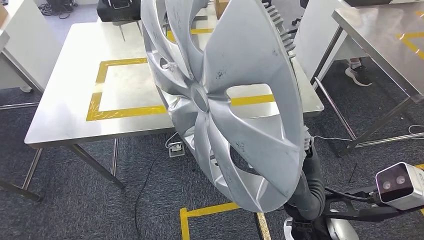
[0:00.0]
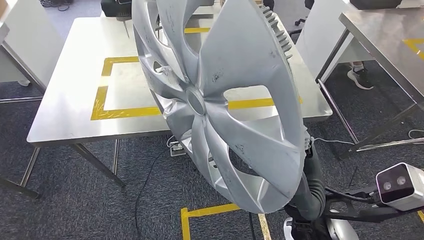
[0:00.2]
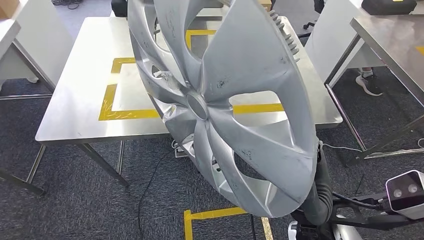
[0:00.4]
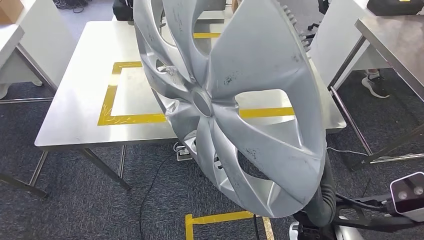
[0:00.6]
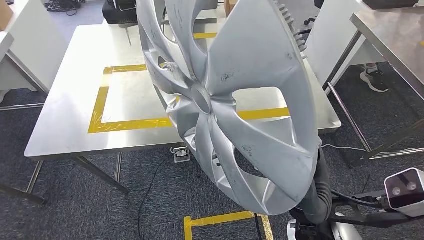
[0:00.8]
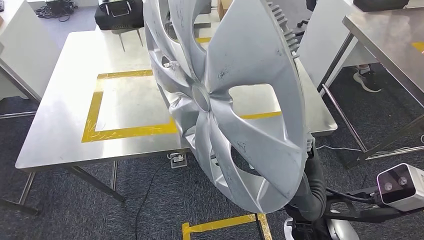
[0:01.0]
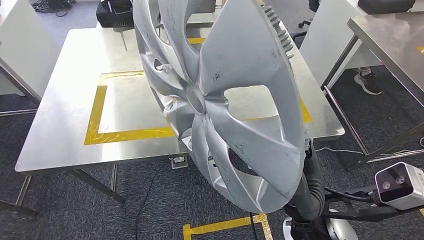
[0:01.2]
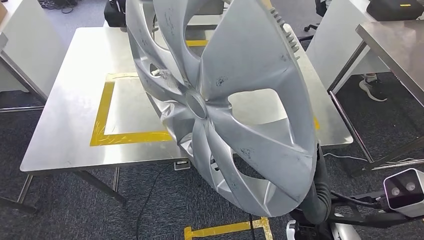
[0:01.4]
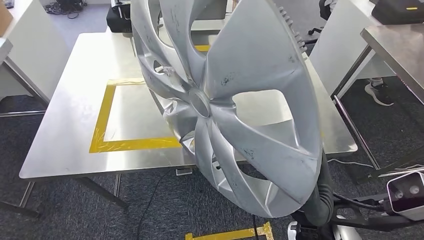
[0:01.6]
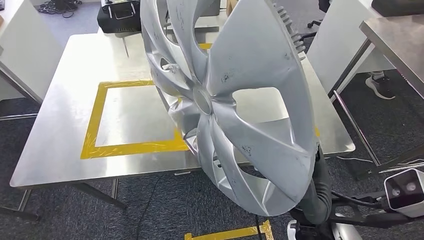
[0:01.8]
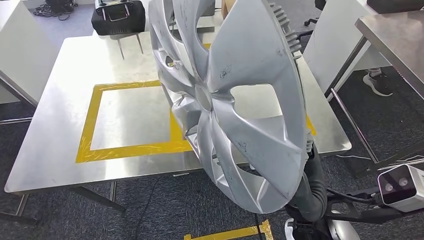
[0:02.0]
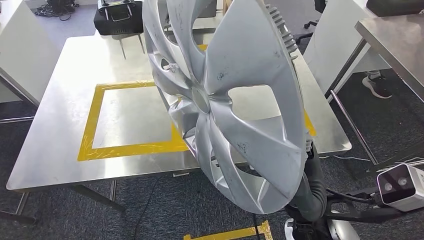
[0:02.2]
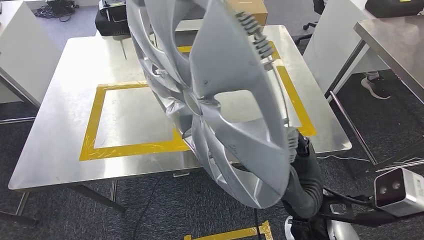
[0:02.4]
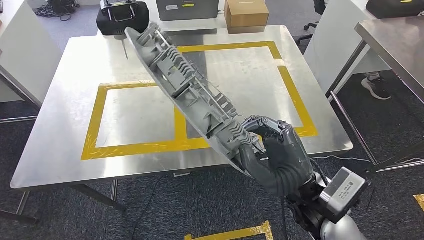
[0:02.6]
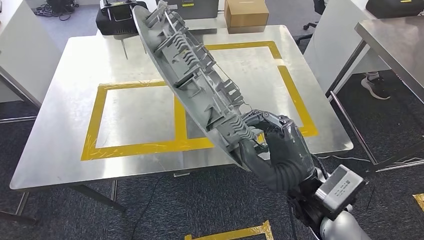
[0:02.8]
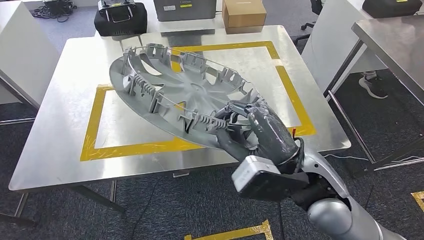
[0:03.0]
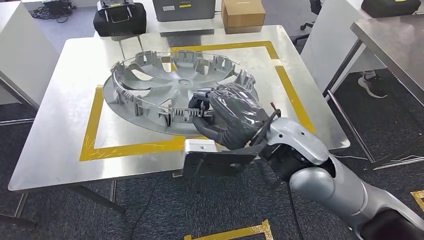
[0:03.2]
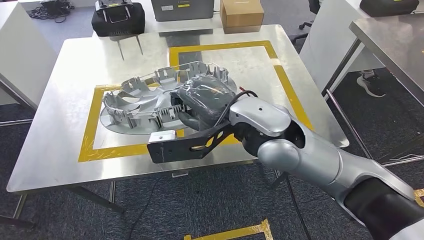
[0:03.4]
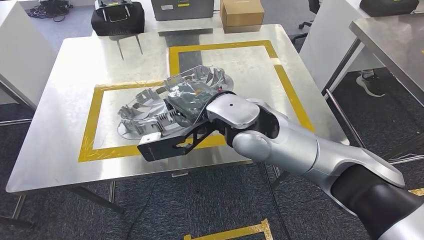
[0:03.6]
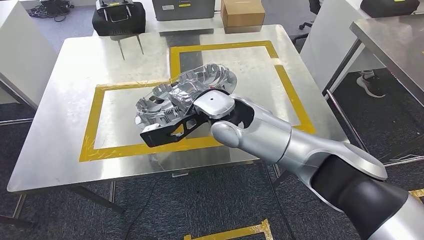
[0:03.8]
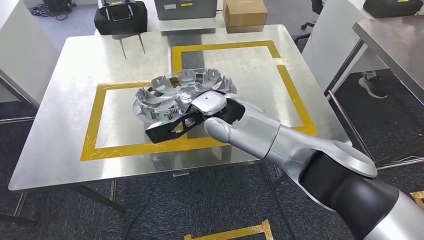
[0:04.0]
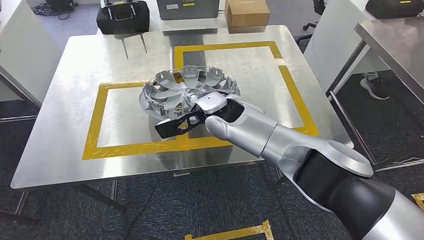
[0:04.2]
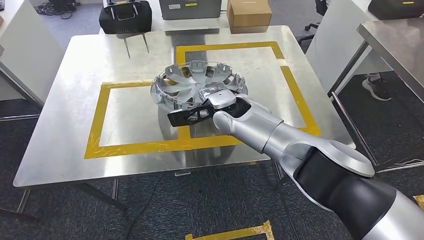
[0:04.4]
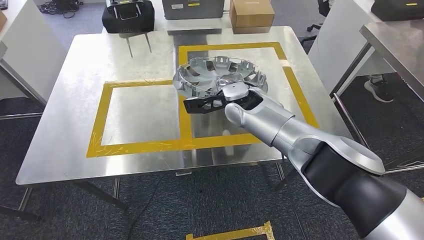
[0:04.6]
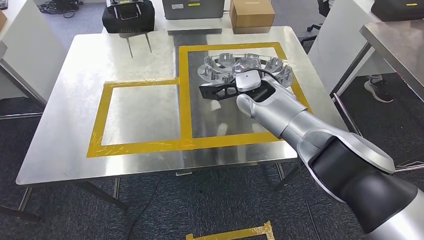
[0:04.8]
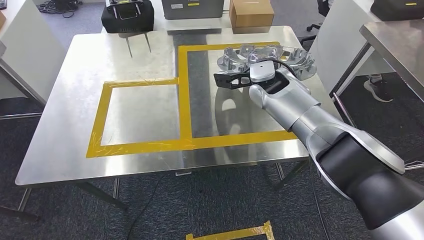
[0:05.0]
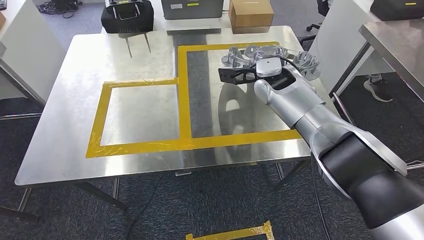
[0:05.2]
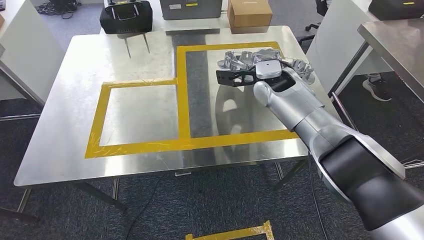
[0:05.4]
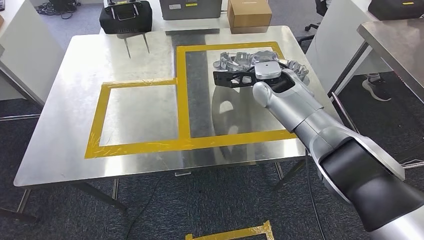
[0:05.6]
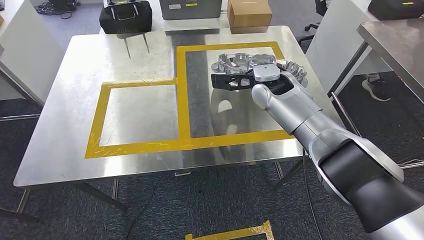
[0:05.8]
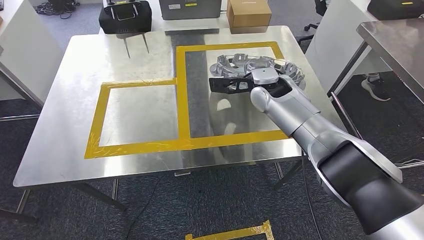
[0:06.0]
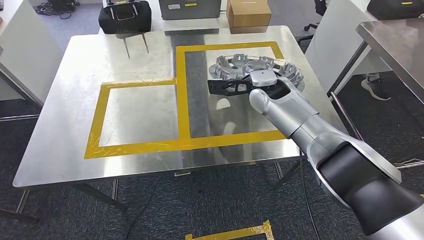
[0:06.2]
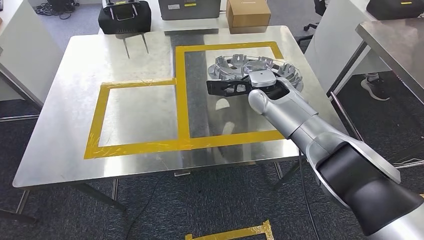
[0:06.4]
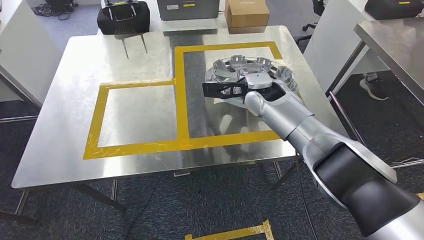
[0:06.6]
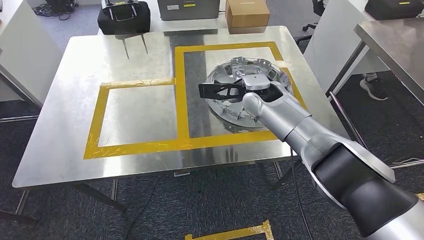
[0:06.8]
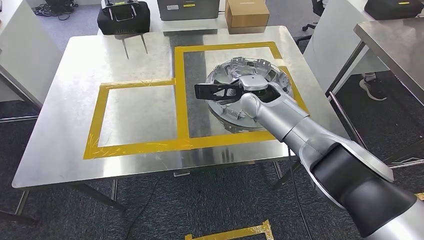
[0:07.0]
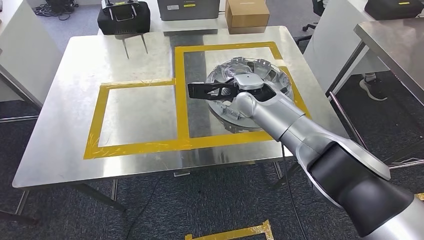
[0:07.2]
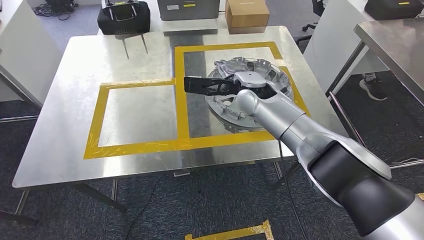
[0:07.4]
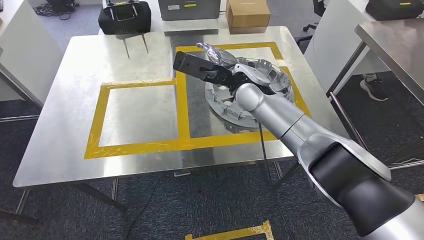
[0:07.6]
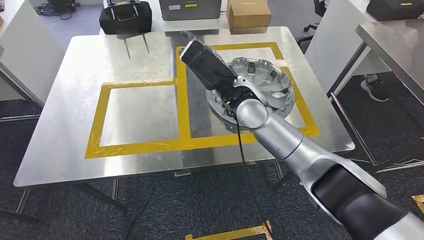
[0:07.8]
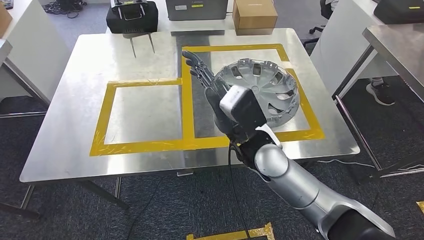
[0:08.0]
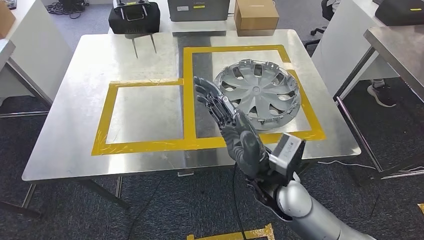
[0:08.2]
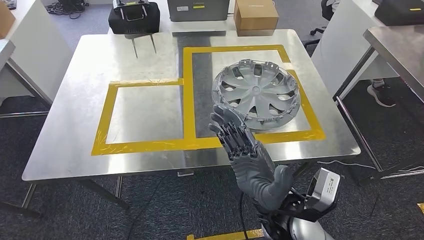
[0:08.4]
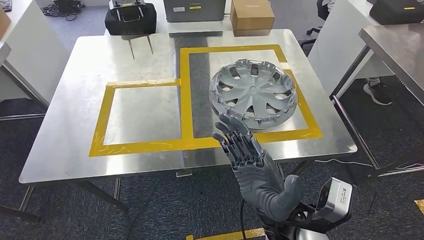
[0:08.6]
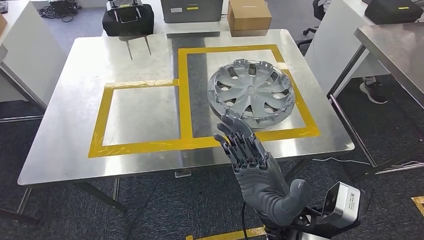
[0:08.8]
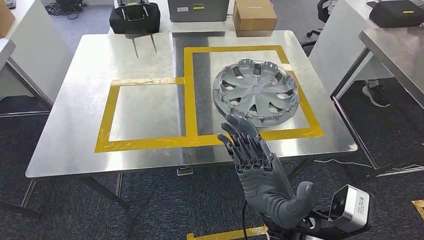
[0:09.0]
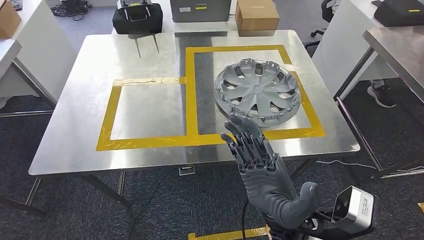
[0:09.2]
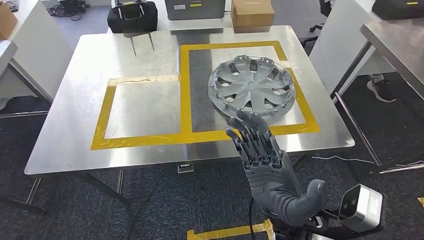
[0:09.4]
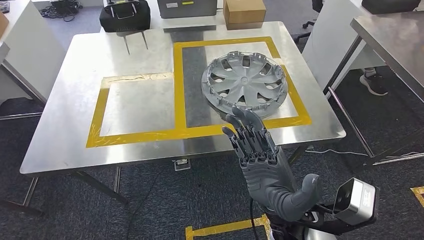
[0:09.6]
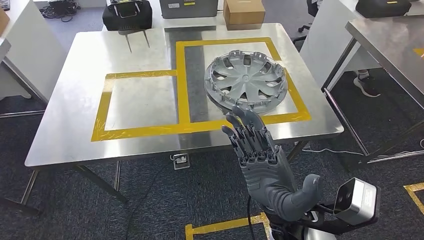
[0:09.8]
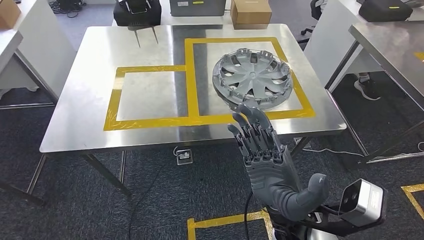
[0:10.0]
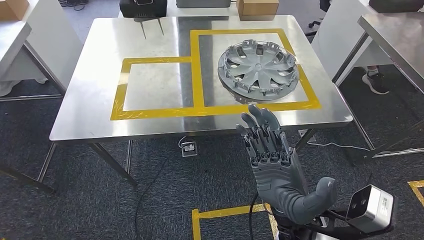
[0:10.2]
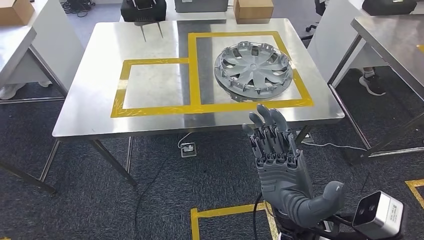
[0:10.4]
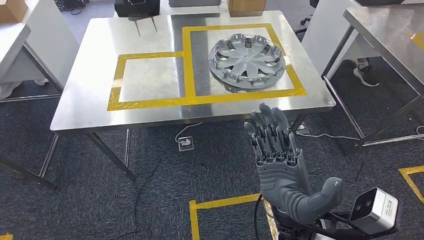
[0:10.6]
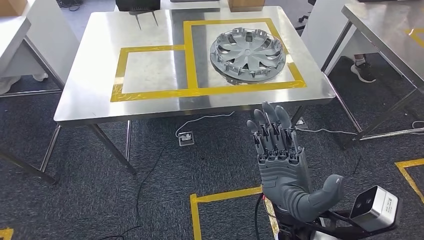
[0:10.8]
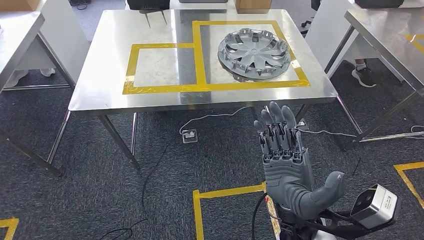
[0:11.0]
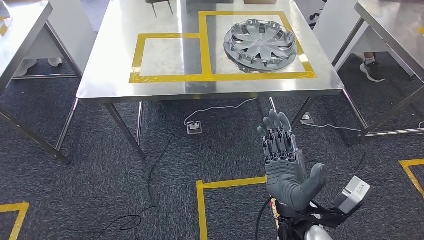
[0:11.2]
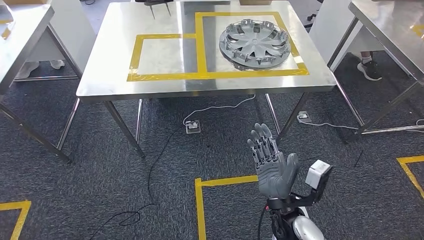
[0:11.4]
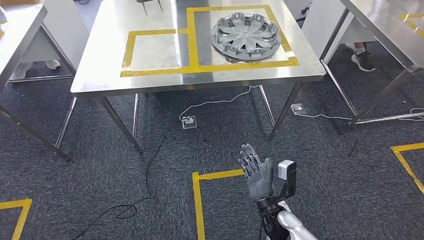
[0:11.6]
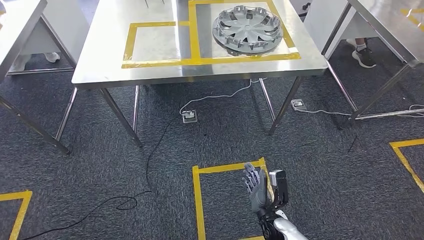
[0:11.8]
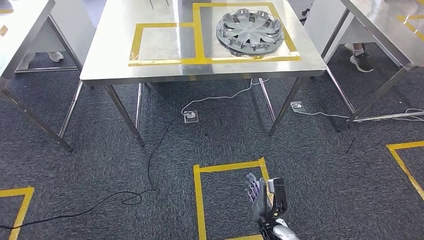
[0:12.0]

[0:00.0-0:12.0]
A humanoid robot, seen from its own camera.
Step, 0:00.0 to 0:09.4: Insert the small component into the corresponding slot on the workbench.
0:04.4 to 0:06.0: The right hand goes some 10 cm to the right.
0:06.0 to 0:07.6: The right hand travels to the left by about 5 cm.

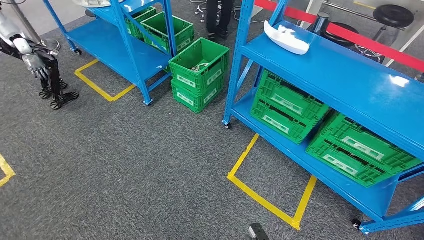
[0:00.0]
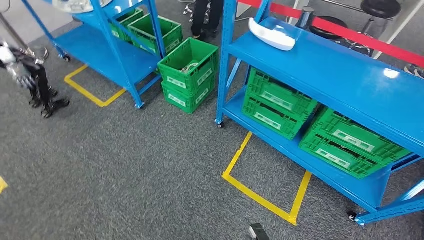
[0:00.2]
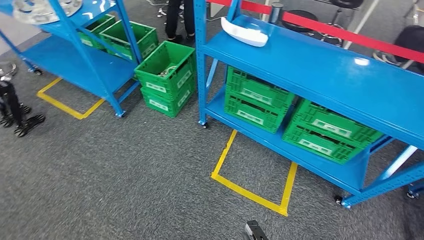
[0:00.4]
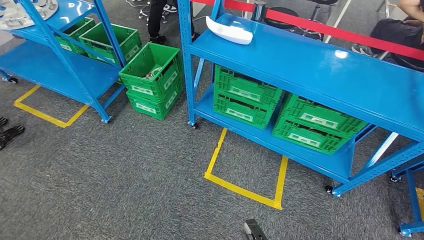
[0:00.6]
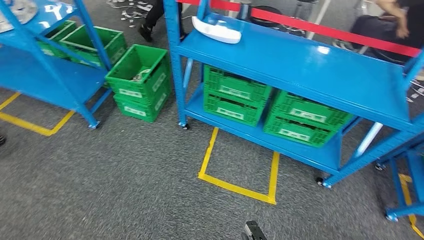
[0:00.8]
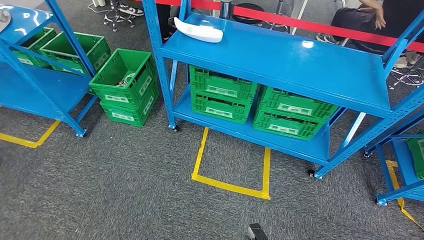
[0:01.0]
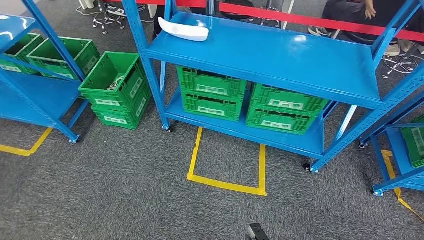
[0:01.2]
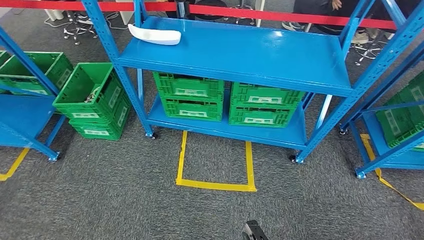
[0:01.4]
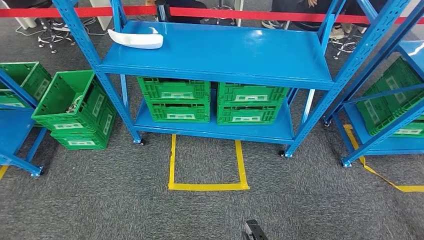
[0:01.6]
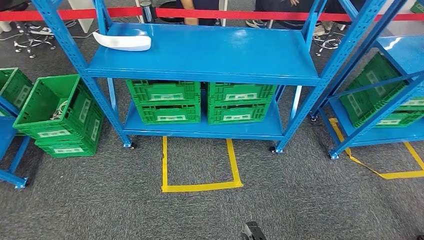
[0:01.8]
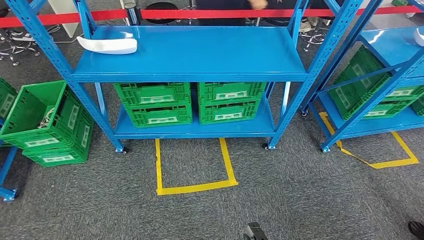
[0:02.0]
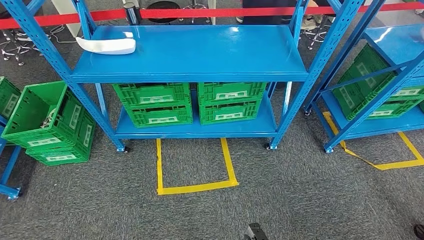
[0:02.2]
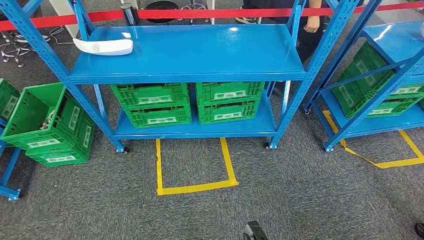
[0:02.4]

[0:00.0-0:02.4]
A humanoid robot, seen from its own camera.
Step, 0:00.0 to 0:02.4: Return to the initial position at the workbench.
